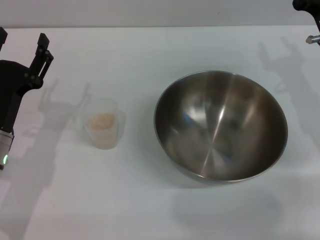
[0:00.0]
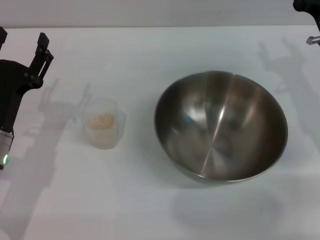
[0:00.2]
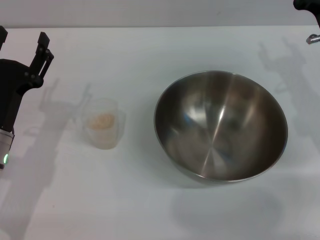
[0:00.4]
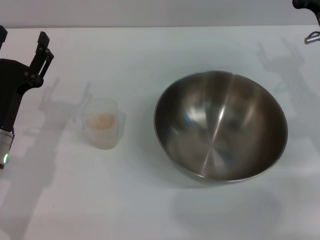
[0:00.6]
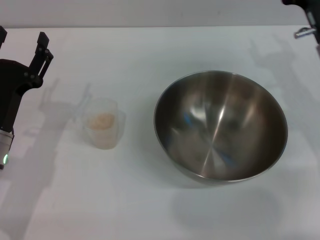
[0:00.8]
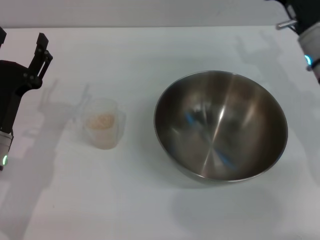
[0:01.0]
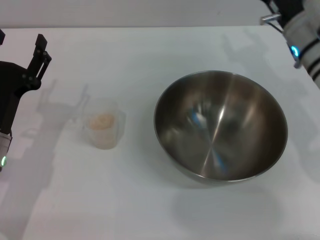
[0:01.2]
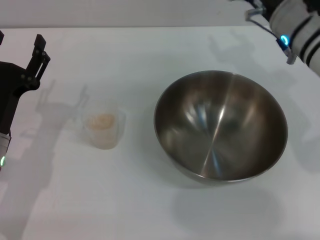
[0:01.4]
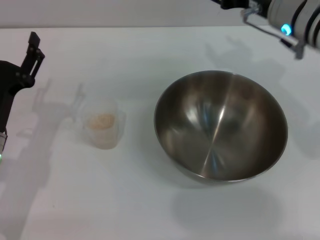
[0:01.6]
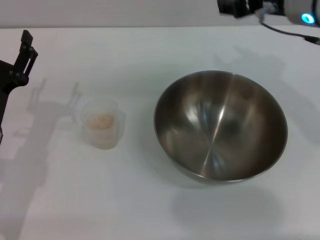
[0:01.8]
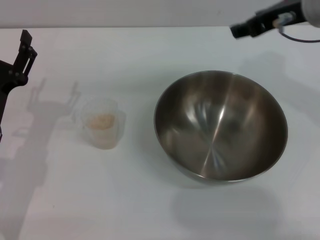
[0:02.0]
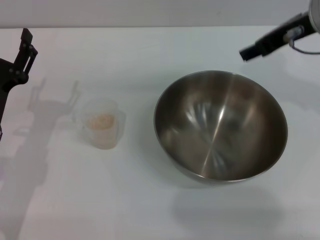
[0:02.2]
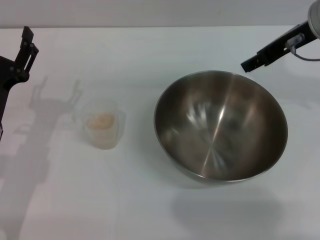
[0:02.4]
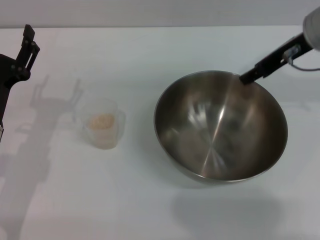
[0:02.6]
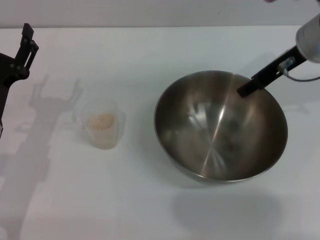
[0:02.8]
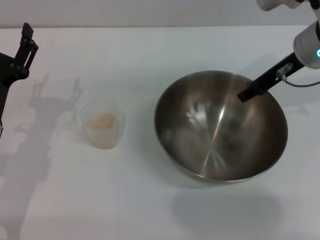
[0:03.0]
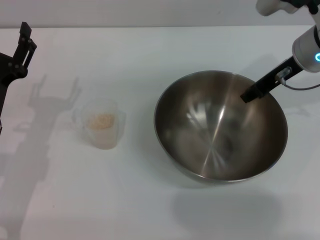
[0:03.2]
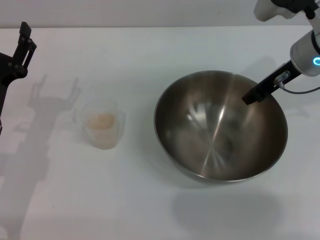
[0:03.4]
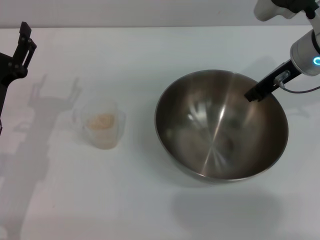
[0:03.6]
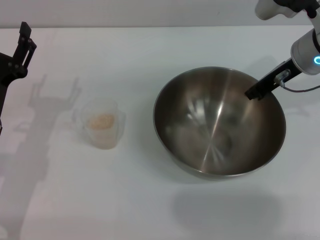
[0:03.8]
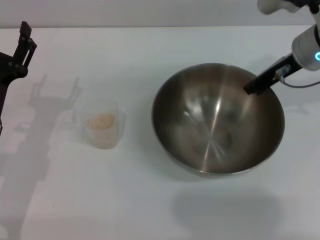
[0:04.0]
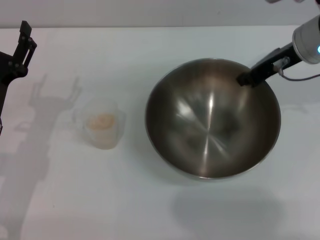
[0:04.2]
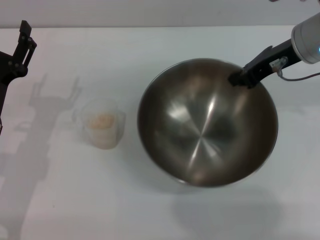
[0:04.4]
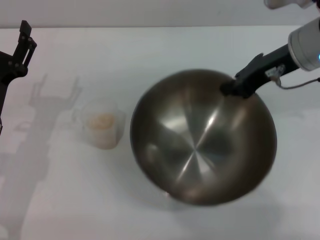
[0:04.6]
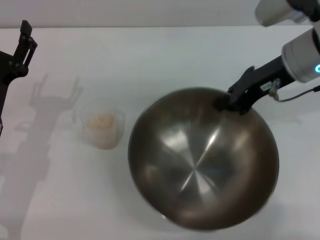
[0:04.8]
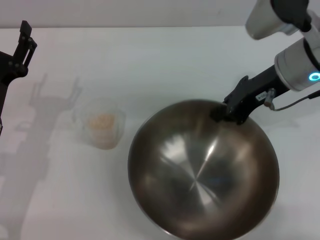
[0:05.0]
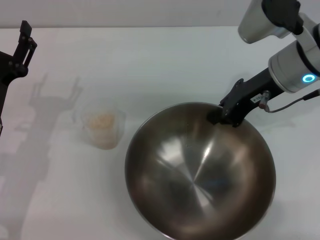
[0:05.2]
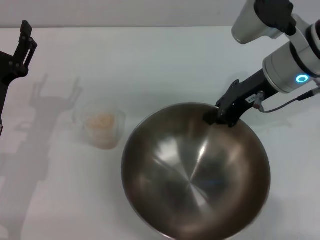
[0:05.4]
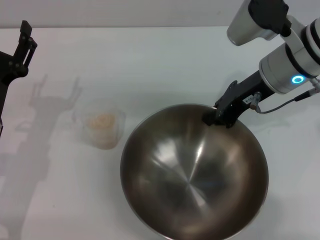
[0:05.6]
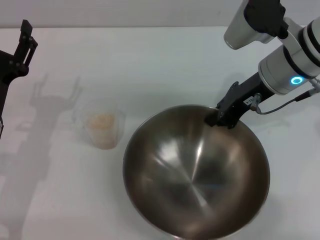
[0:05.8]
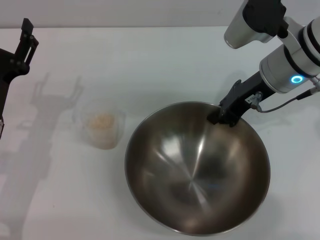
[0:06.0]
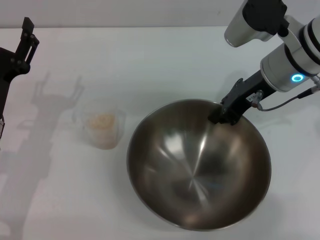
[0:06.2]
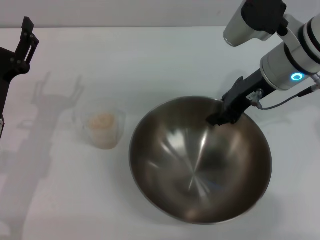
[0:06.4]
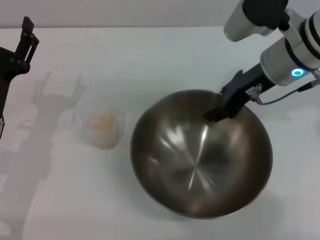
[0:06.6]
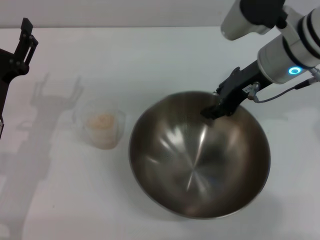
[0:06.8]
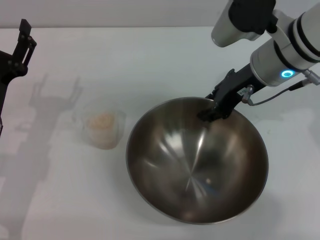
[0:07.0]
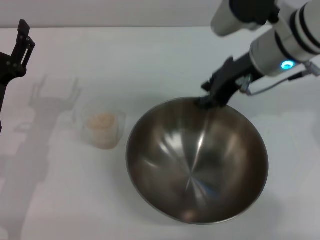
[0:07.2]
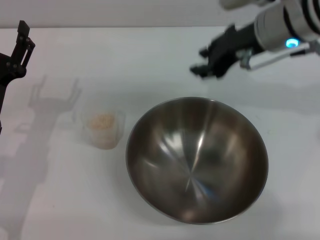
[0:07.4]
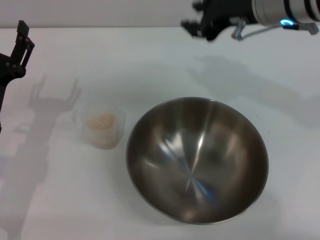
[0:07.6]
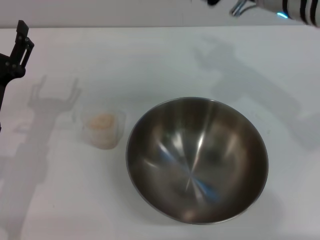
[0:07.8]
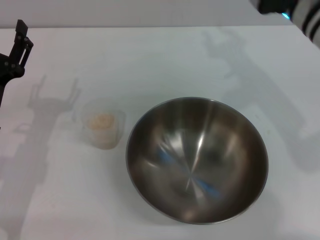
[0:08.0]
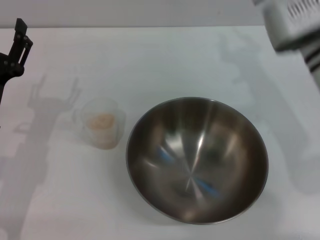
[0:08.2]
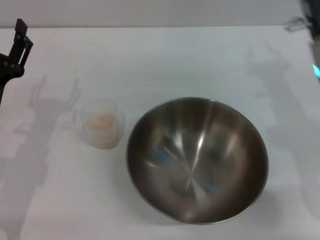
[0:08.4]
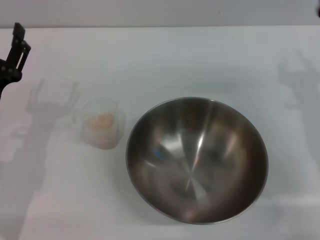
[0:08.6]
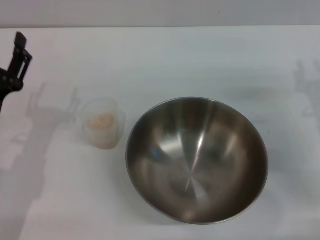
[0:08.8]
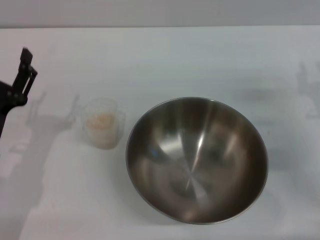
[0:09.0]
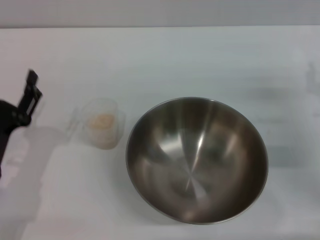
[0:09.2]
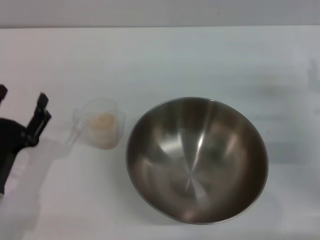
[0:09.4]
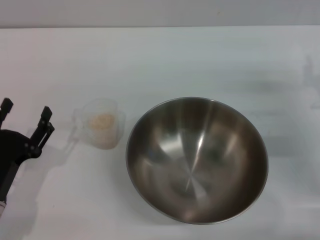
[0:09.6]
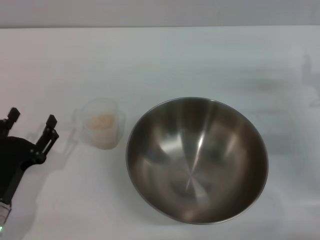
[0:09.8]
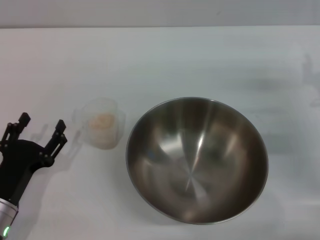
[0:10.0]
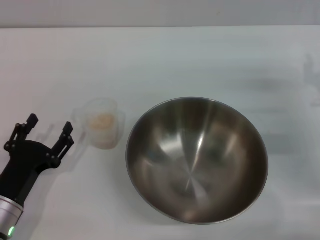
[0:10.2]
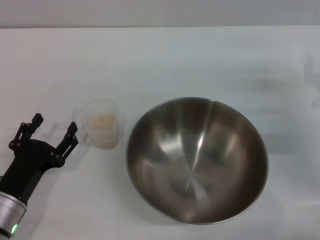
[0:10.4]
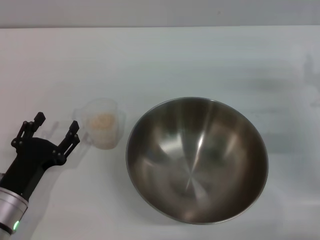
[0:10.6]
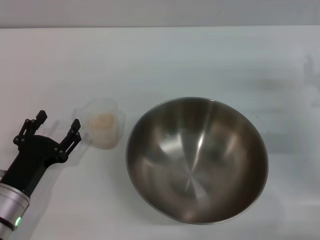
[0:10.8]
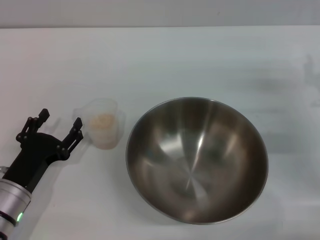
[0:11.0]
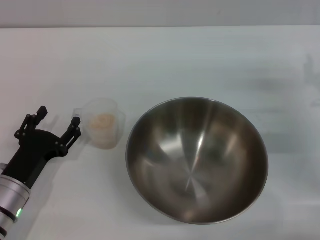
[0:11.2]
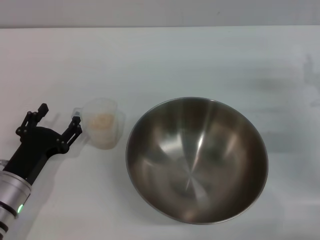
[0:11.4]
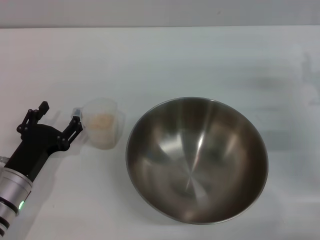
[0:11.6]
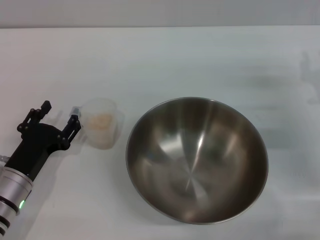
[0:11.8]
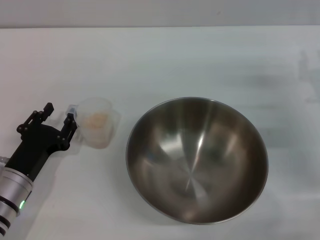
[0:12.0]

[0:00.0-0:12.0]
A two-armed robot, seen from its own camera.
Task of the whole recording: Place the bowl in the middle of the table with one hand and pour the rice from the grain cup into it with the other hand.
Step, 0:00.0 to 0:04.2: Pick up the bowl with the right gripper.
Step, 0:04.4 to 0:07.2: Place the bowl in the center of view with the right gripper.
0:00.0 to 0:01.6: The right gripper travels upward and to the left by about 15 cm.
0:03.0 to 0:04.4: The right gripper closes up.
0:06.0 to 0:07.6: The right gripper moves upward, roughly 5 cm, and opens.
0:07.6 to 0:09.0: The right gripper is displaced downward, to the right and backward by approximately 25 cm.
0:09.0 to 0:10.4: The left gripper travels downward by some 5 cm.
0:10.4 to 0:12.0: There are only small adjustments of the grippers.

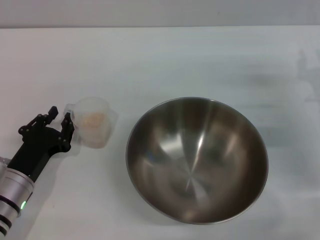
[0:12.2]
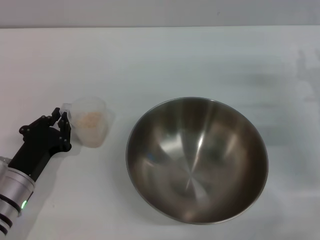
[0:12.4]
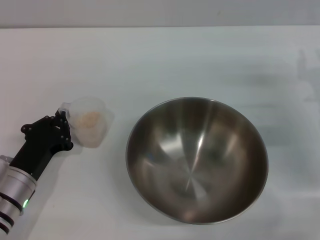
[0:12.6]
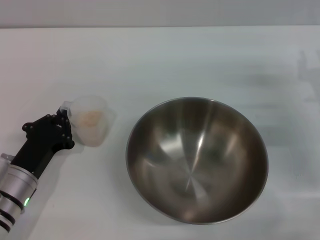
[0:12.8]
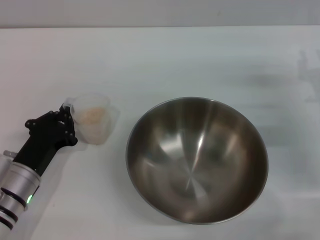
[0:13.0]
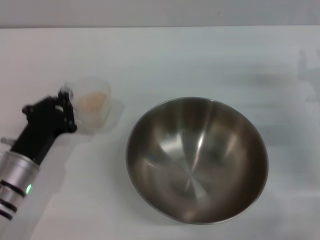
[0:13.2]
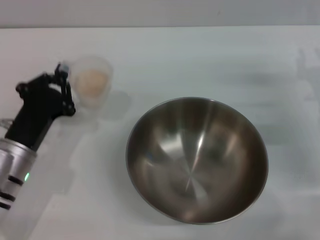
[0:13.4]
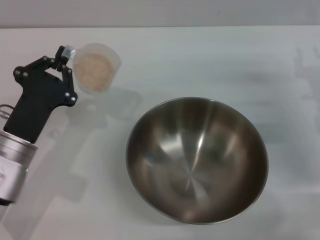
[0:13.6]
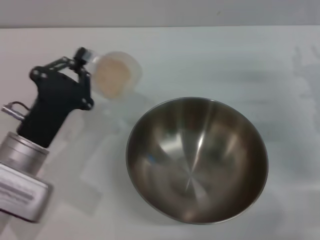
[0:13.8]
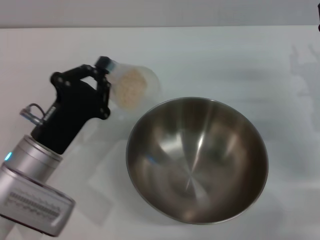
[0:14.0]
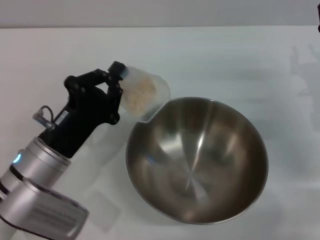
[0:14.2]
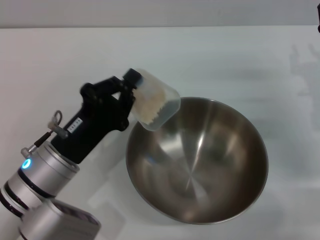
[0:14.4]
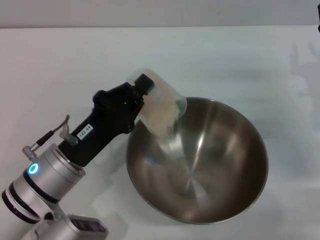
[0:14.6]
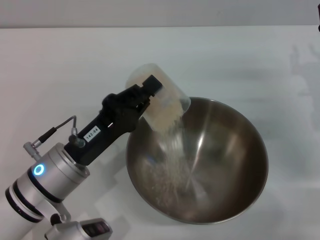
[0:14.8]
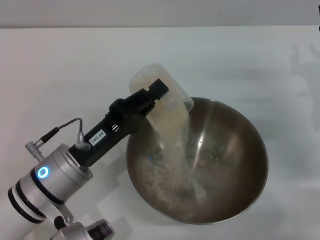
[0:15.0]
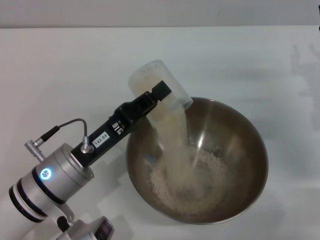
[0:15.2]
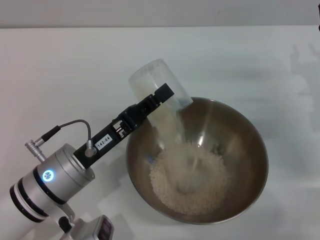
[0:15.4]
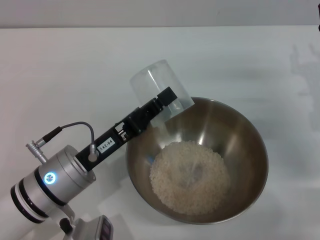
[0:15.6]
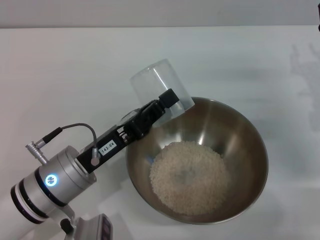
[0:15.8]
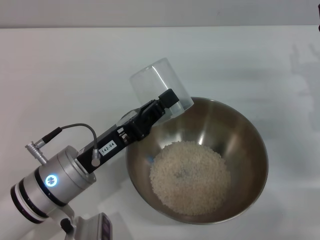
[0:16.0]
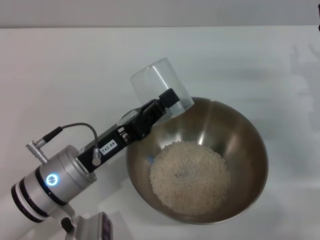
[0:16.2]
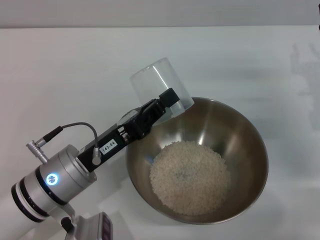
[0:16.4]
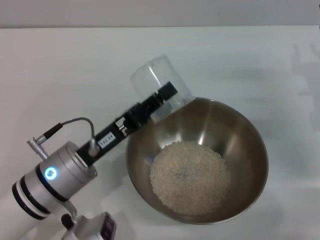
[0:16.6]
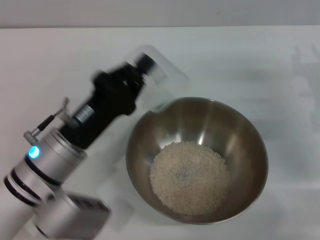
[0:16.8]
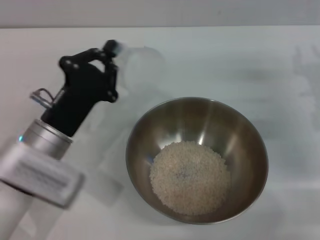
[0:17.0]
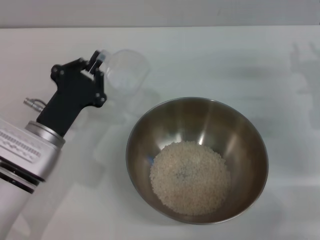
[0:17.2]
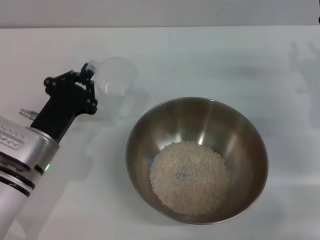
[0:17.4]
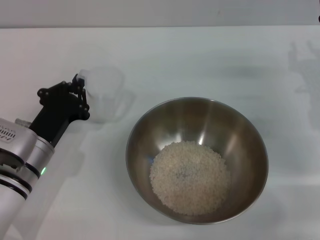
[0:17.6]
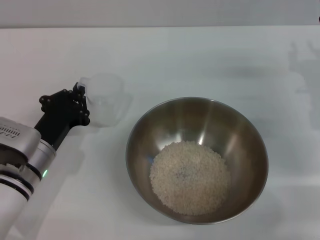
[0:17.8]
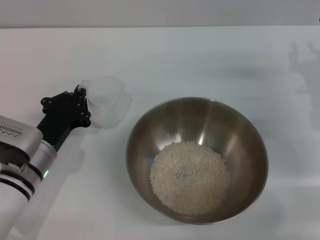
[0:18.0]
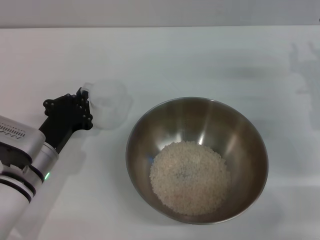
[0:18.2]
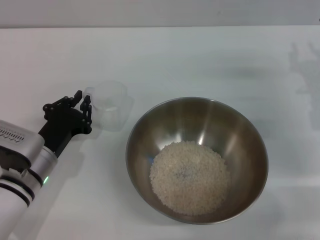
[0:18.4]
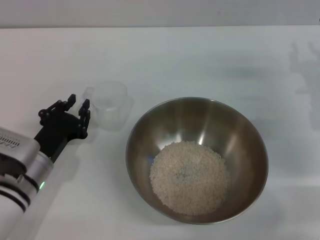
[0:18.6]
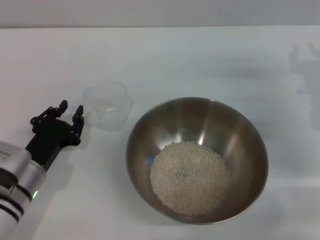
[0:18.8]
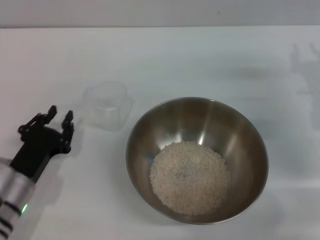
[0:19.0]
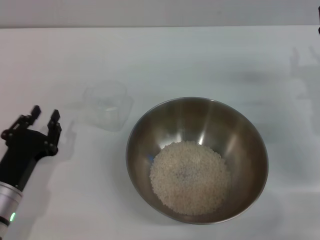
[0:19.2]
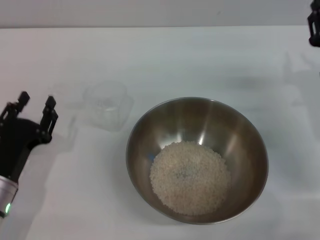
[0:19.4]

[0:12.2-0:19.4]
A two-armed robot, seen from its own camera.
Task of the whole recording: Place the bowl in the middle of the table with one hand and pour the rice from the grain cup into it with the other hand.
Step, 0:13.6 to 0:16.4: Pour the rice from the cup into the bowl with the left gripper.
Step, 0:16.6 to 0:18.8: Place the cup on the table with the left gripper.
0:12.2 to 0:13.6: The left gripper moves upward, roughly 5 cm, and closes.
0:13.6 to 0:15.0: The left gripper shifts approximately 5 cm to the right.
0:16.6 to 0:18.0: The left gripper travels to the left and downward by roughly 5 cm.
0:18.0 to 0:19.4: The left gripper travels backward by roughly 5 cm, and opens up.

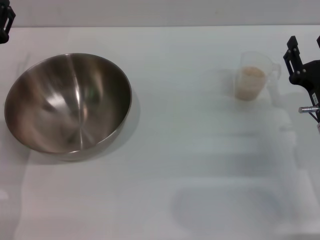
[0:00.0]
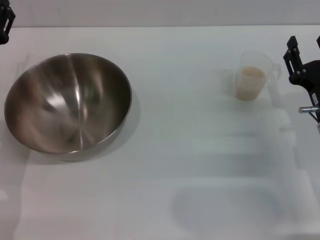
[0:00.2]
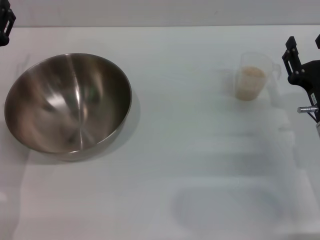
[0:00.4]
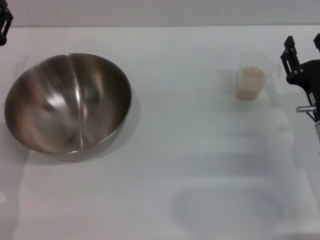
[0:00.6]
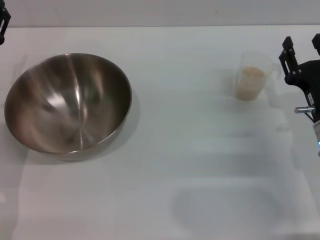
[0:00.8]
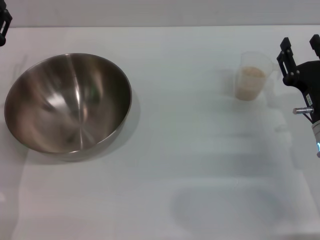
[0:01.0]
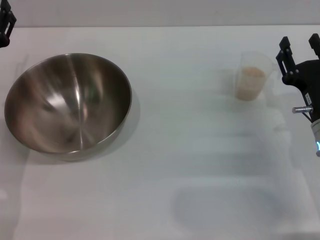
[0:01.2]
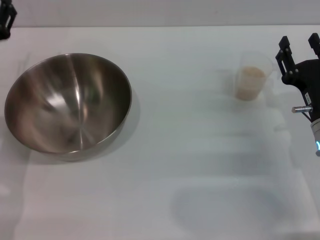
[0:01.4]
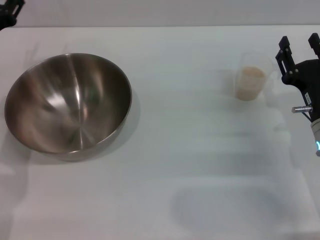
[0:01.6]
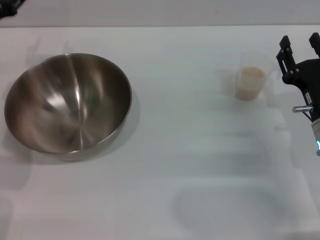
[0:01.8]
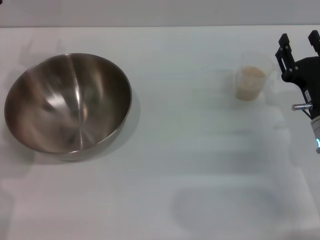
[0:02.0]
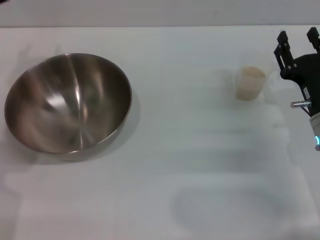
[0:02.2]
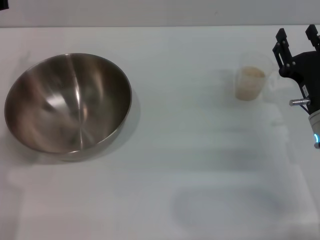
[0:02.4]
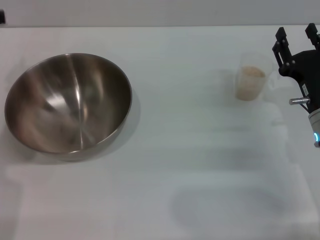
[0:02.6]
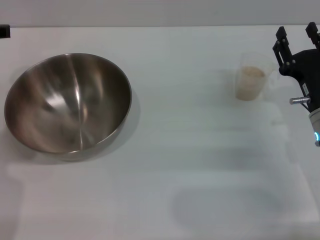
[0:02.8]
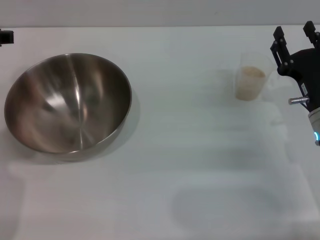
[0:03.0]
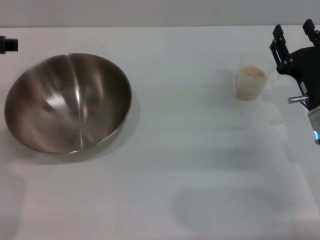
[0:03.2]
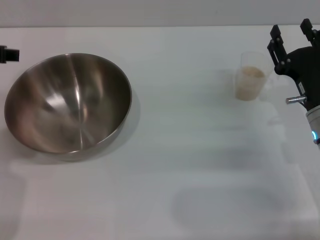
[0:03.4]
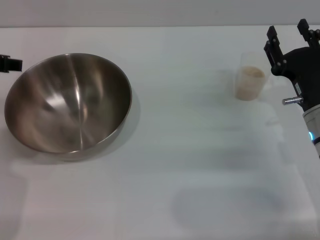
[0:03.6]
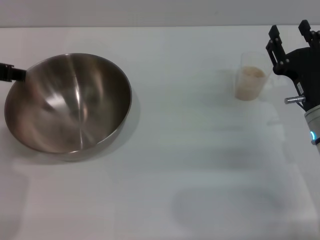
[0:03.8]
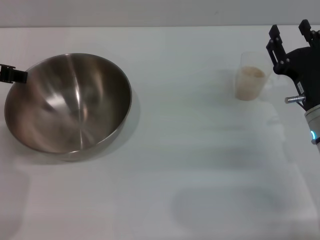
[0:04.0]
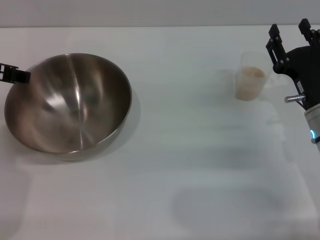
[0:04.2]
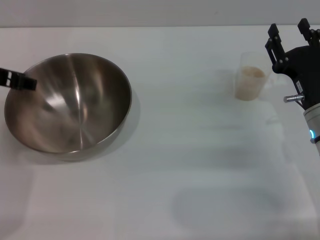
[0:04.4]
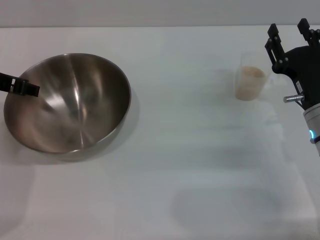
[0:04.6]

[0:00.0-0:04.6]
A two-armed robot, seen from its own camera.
Task of the whole recording: Place the bowl in the middle of the table with one hand and pour the rice from the grain cup into it with the other hand.
0:00.0 to 0:01.6: There are only small adjustments of the grippers.
0:01.6 to 0:03.0: The left gripper moves upward, some 10 cm.
0:03.0 to 0:04.6: The grippers make only small movements.
